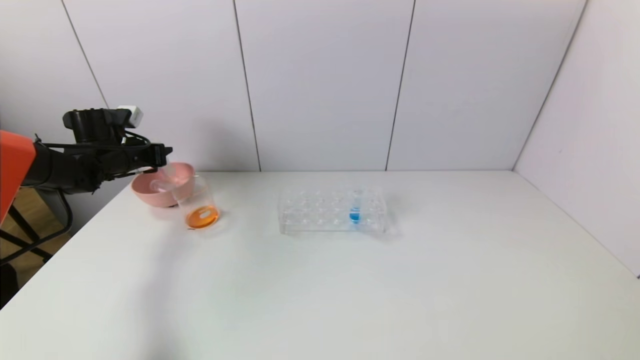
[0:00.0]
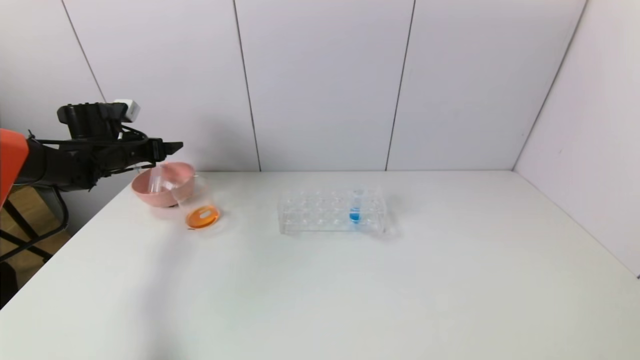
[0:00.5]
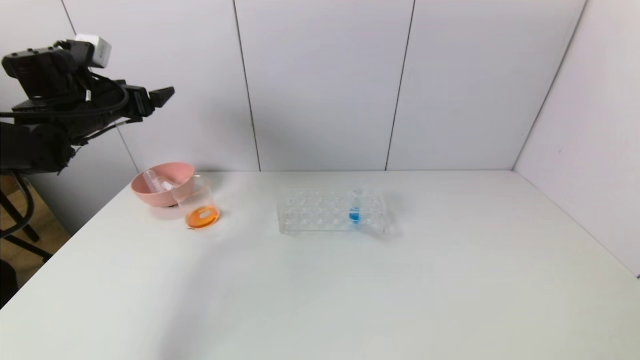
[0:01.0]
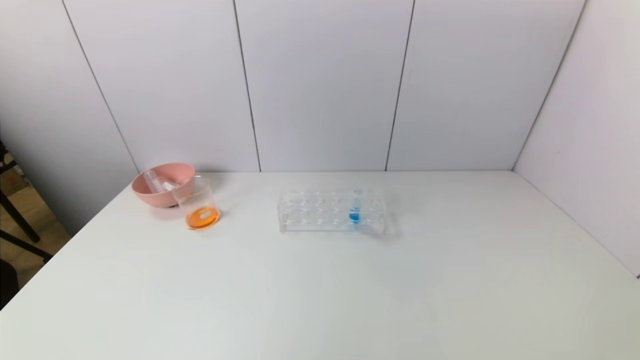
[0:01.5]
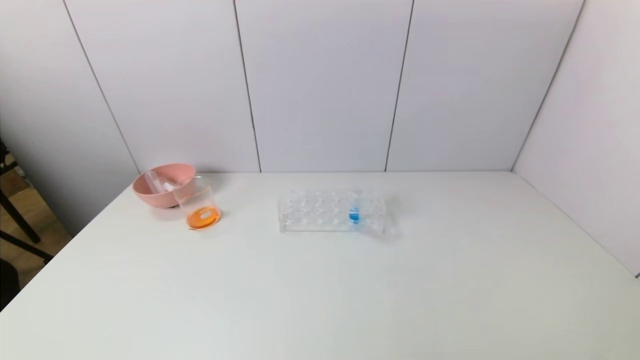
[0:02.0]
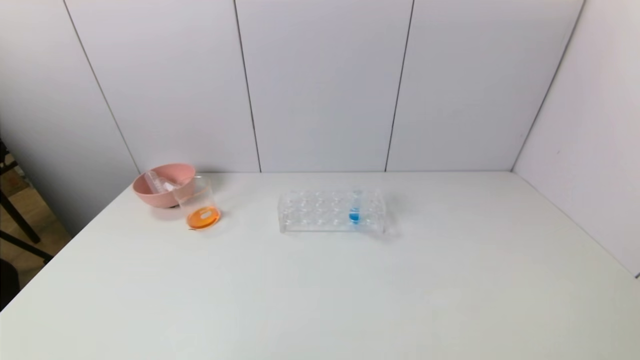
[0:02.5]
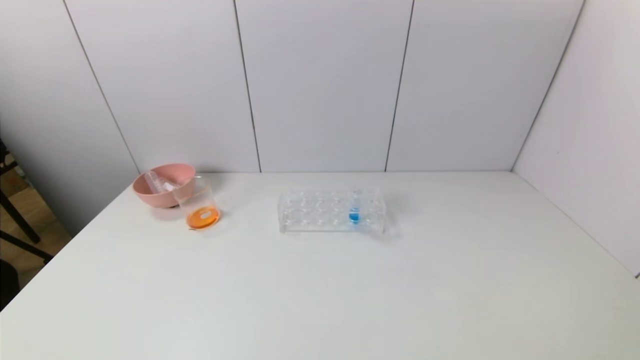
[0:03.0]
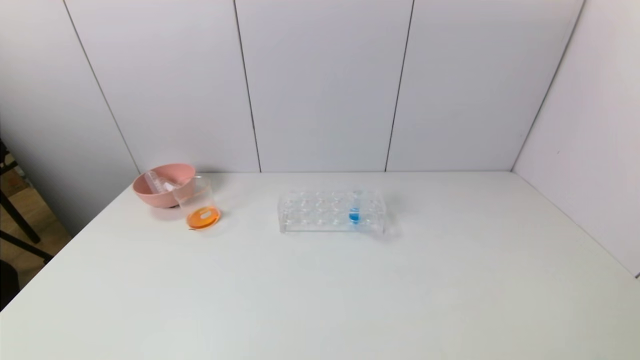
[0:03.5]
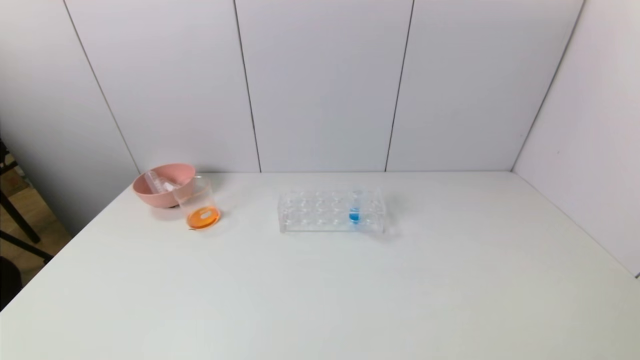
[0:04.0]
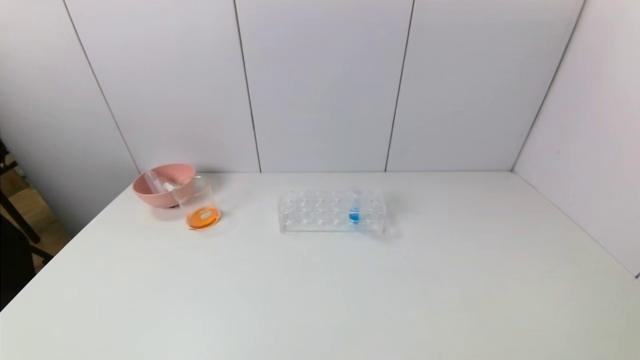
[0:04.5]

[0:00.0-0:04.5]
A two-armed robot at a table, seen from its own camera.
Task of the whole recording: pick up the test tube with yellow pigment and the test tube with red pigment by grippers and pour them into the beaker.
0:00.0 to 0:02.0: The left gripper is displaced backward by about 50 cm, and opens its fingers.
0:02.0 to 0:04.5: The left gripper is displaced downward by some 25 cm.
